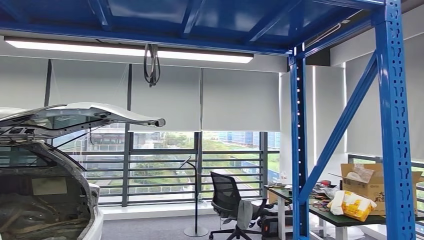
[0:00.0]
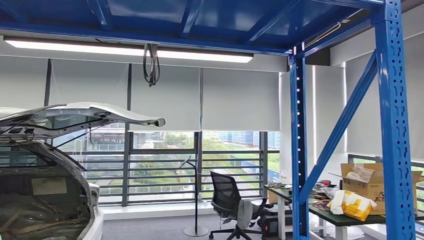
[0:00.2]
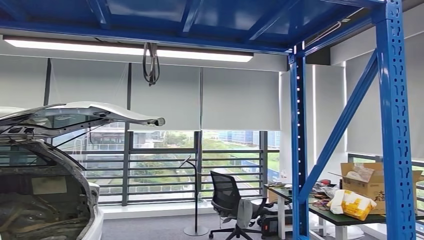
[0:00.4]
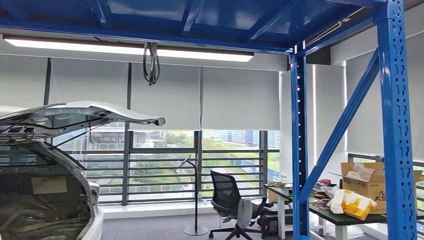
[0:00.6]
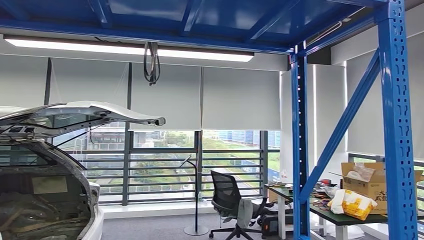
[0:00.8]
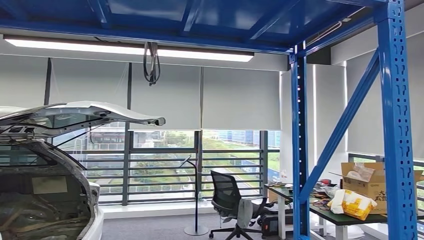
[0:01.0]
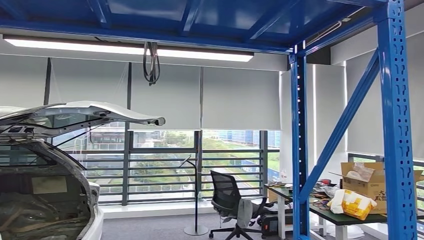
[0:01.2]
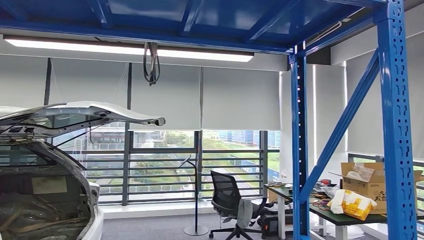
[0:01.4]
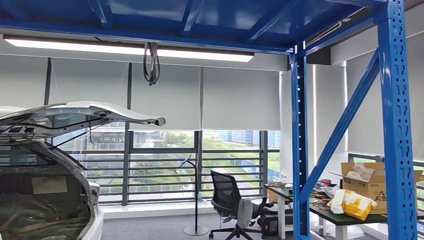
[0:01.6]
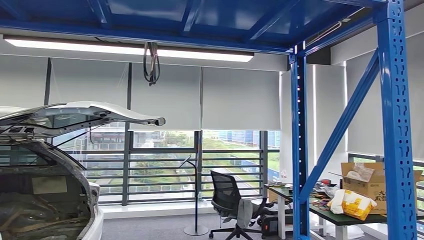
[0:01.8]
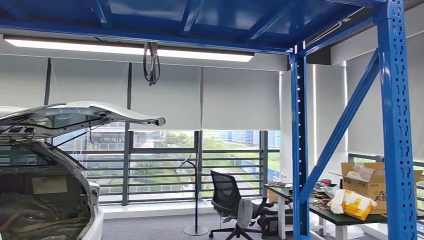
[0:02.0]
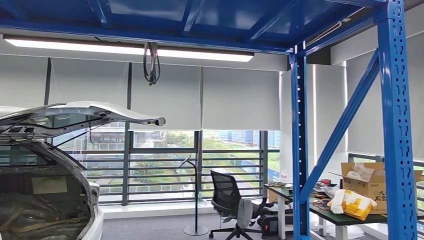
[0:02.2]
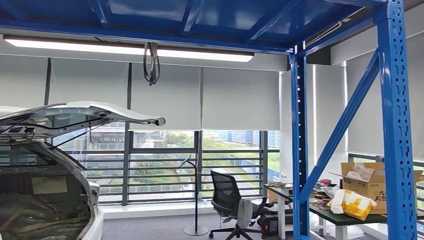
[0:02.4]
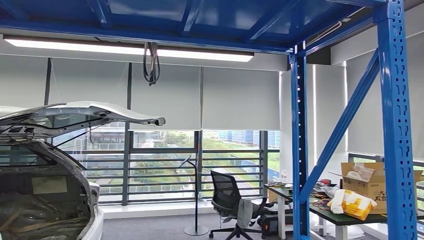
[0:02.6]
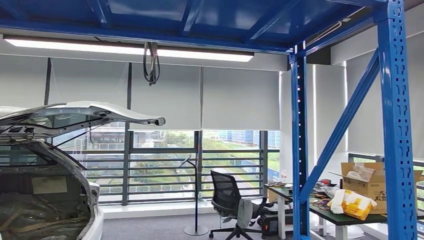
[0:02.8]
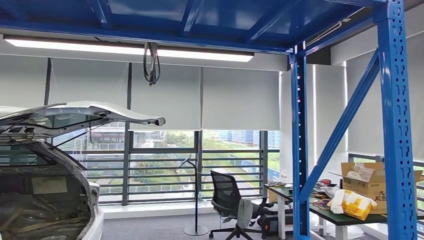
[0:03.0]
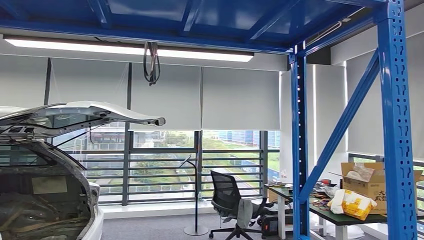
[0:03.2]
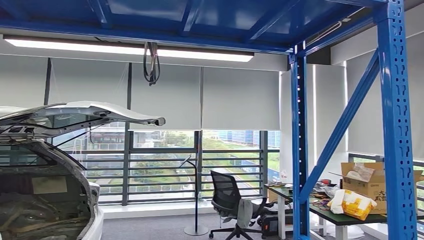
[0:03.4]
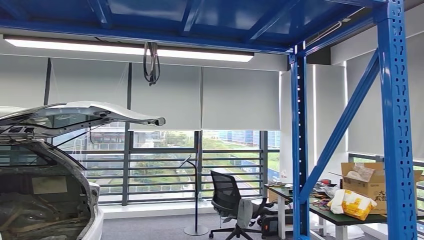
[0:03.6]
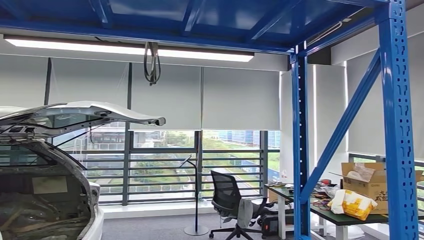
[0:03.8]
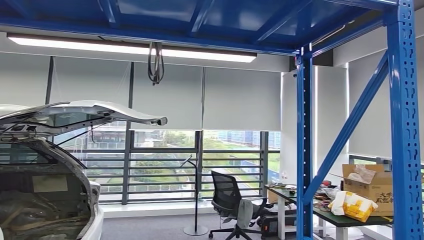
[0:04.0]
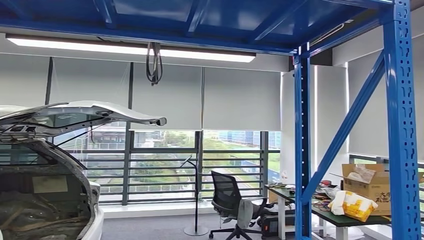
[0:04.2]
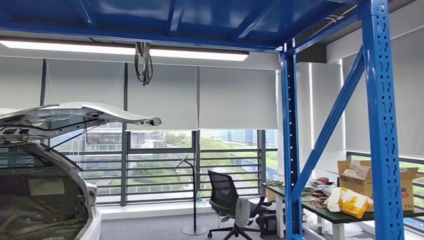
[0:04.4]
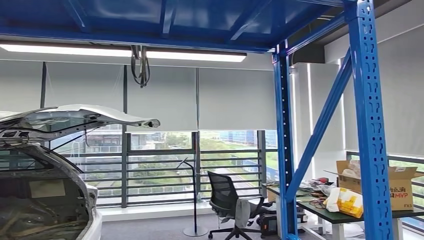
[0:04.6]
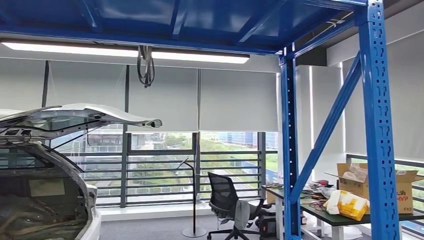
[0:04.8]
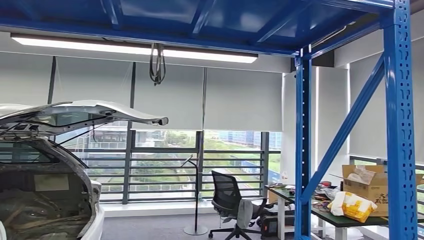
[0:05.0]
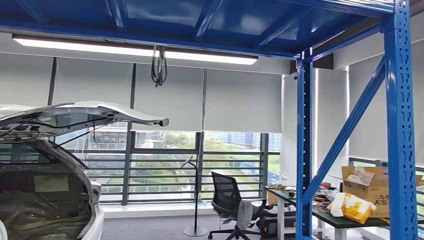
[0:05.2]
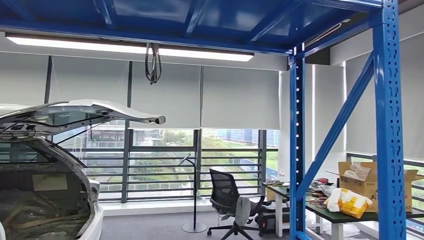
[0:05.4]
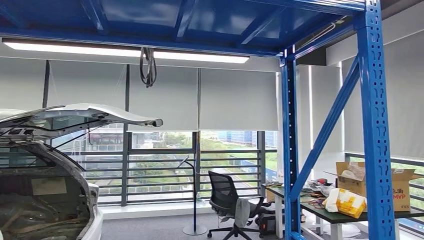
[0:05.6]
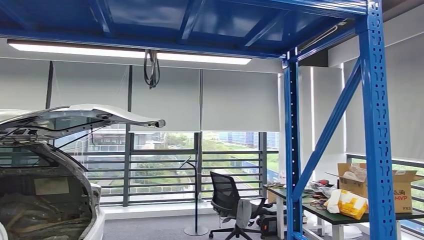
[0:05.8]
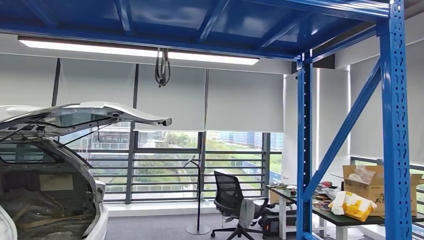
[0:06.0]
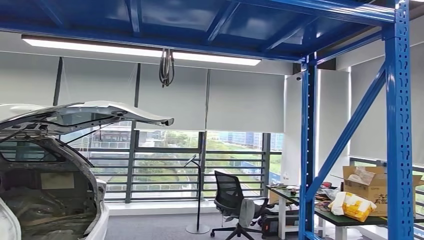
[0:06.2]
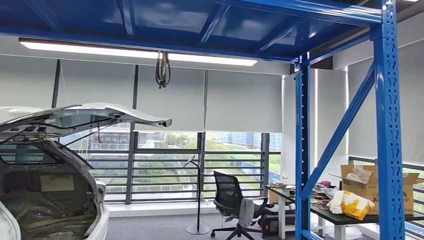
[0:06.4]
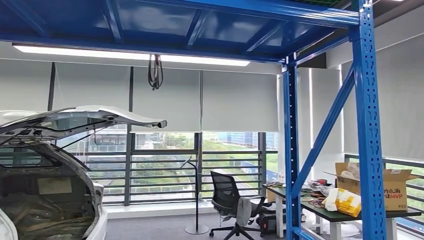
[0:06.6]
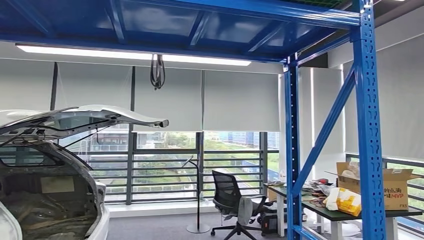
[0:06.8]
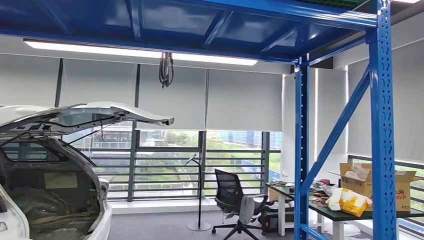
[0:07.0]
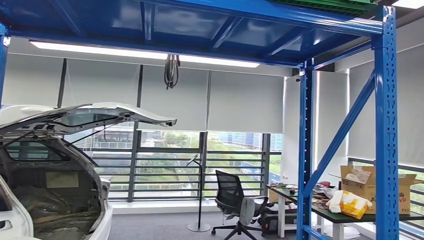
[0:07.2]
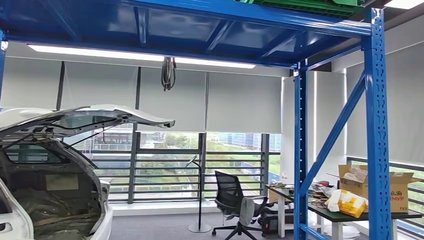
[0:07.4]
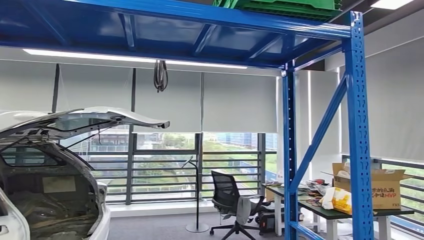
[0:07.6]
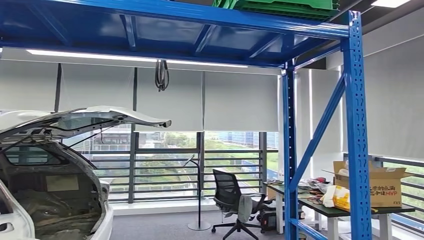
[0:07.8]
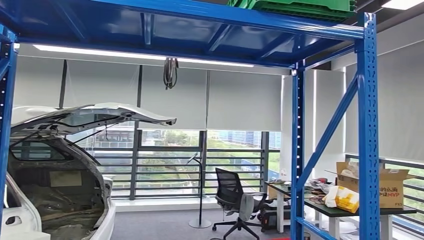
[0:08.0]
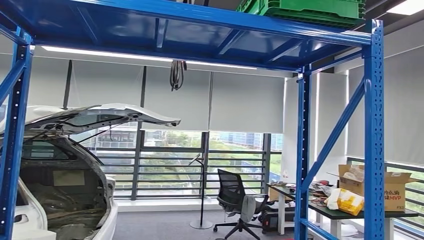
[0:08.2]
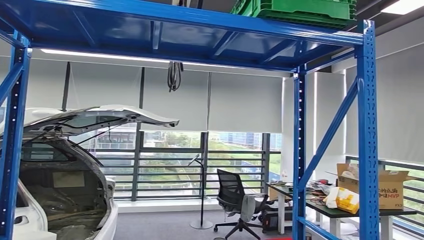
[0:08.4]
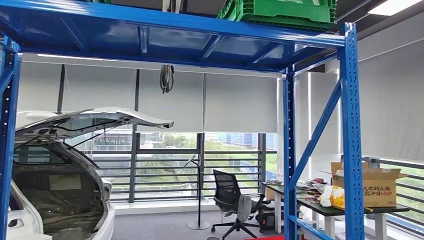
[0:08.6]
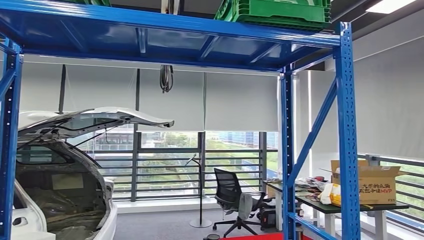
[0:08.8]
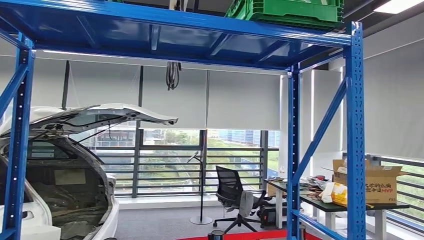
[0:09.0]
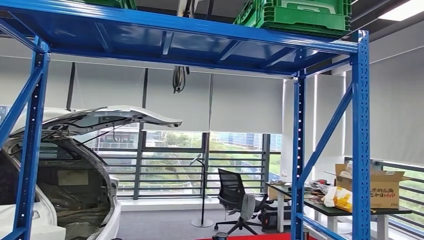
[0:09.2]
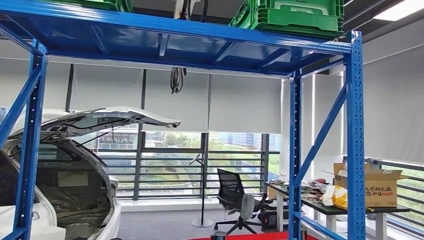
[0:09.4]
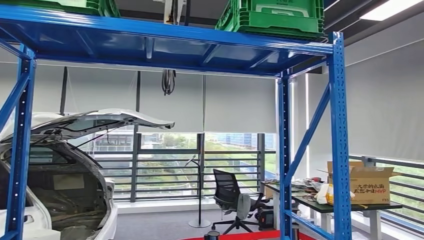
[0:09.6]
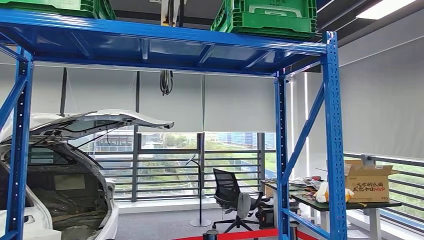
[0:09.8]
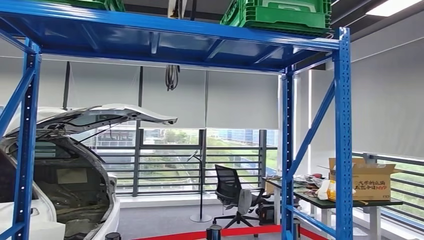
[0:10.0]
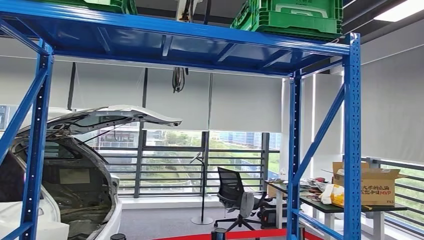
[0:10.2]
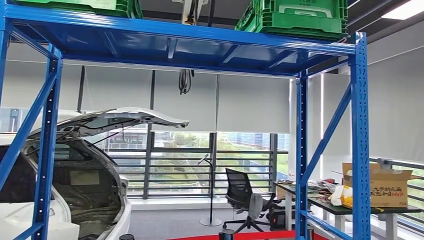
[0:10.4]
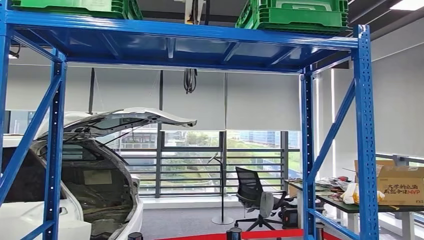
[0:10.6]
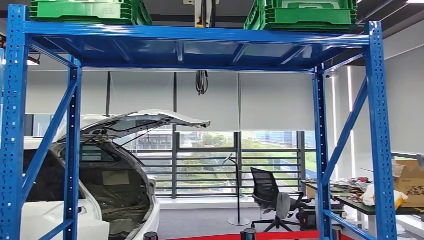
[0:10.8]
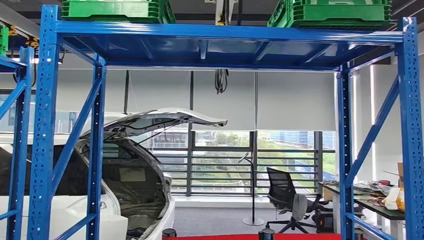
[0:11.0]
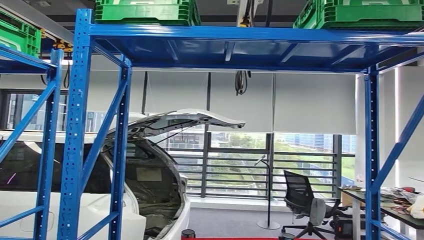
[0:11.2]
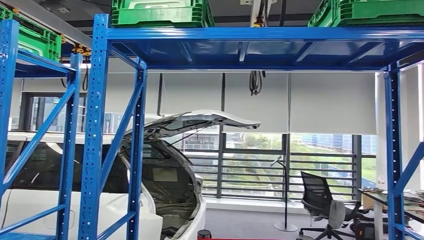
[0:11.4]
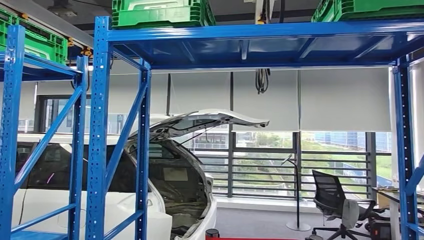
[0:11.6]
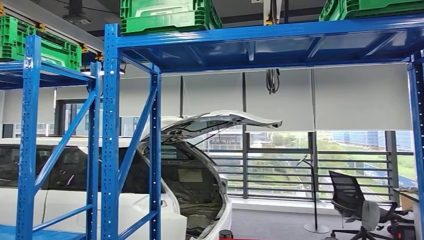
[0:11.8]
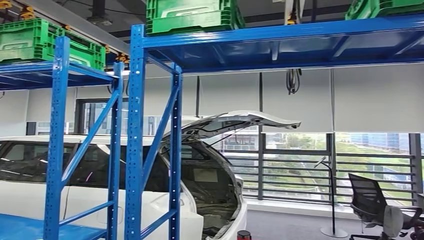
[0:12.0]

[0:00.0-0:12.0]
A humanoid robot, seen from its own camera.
0:00.0 to 0:01.6: The right hand is displaced backward, to the left and upward by roughly 20 cm.

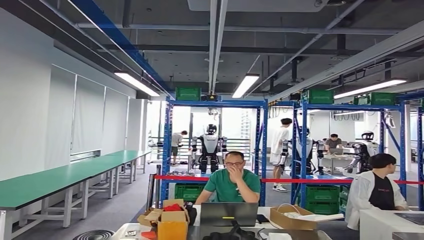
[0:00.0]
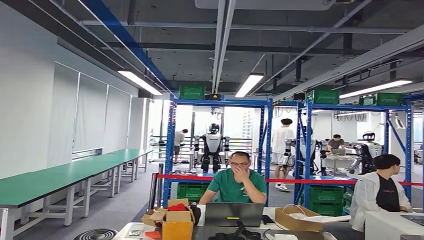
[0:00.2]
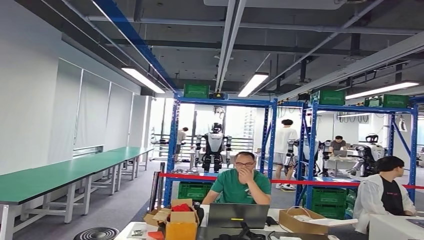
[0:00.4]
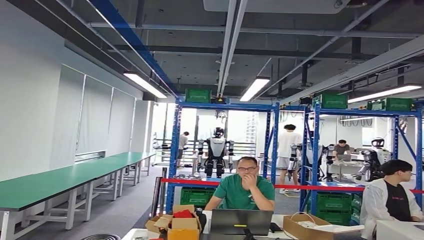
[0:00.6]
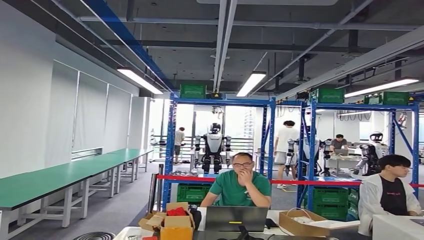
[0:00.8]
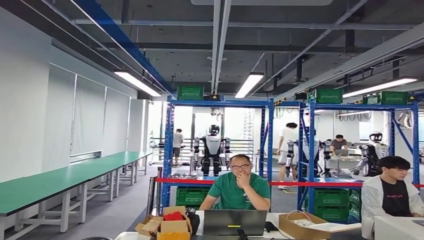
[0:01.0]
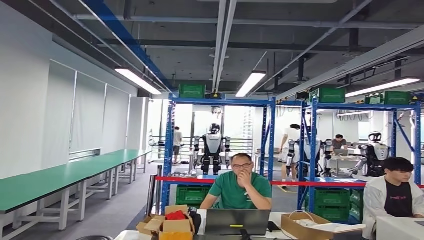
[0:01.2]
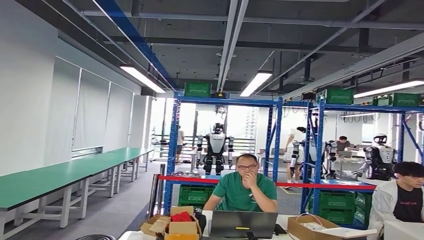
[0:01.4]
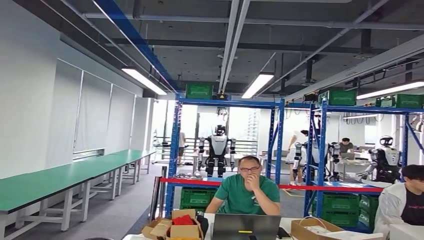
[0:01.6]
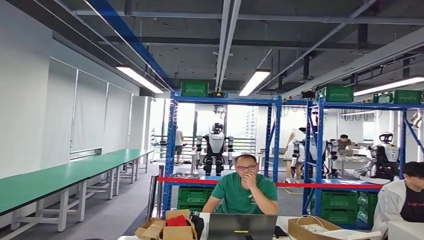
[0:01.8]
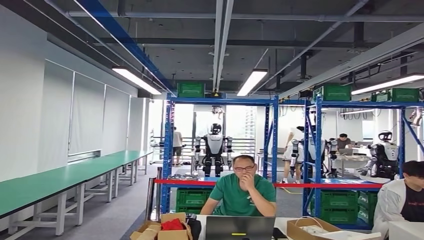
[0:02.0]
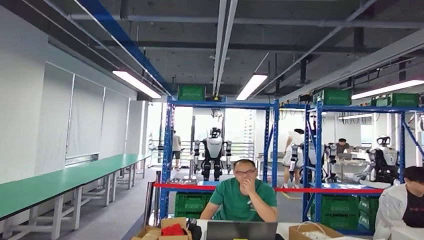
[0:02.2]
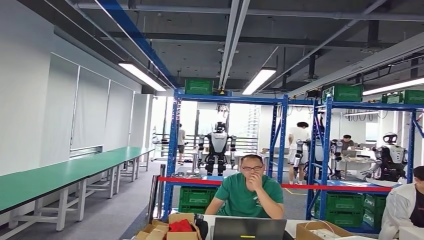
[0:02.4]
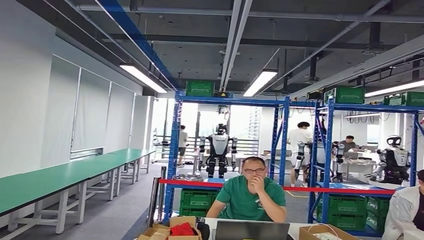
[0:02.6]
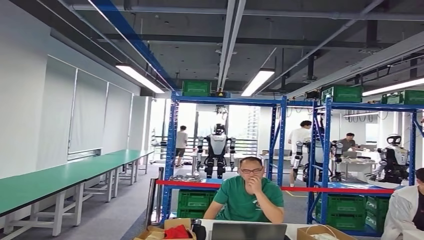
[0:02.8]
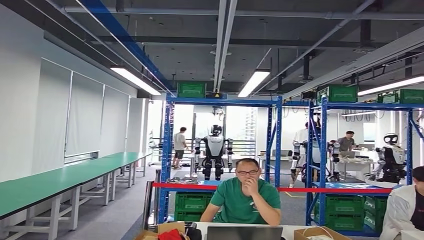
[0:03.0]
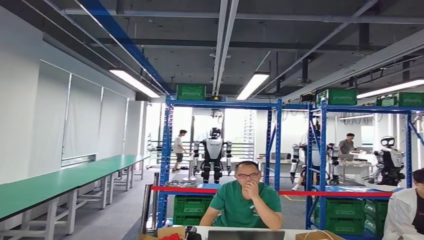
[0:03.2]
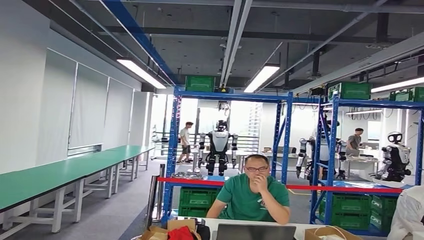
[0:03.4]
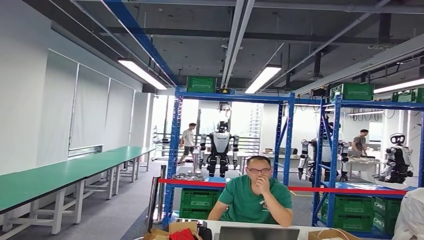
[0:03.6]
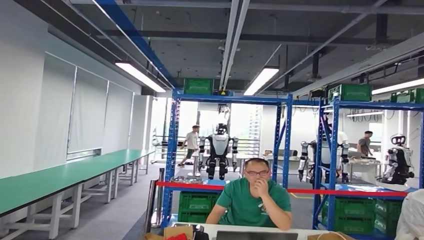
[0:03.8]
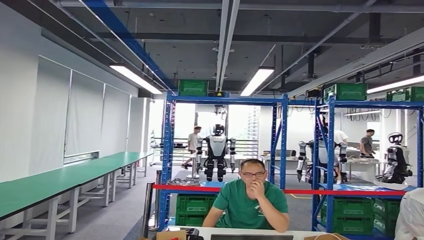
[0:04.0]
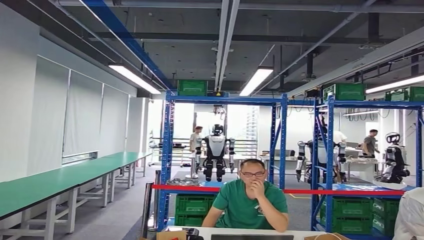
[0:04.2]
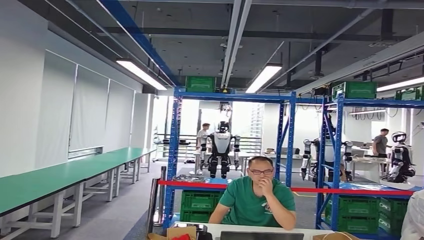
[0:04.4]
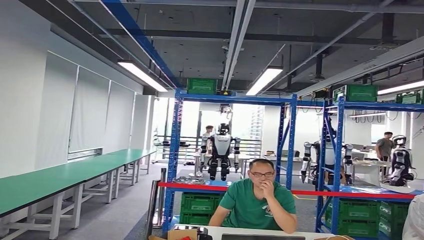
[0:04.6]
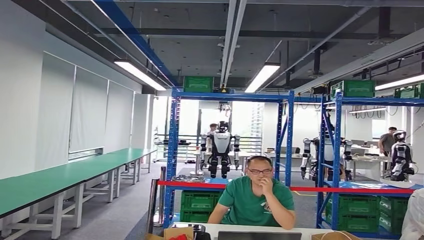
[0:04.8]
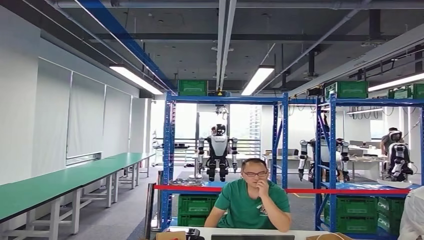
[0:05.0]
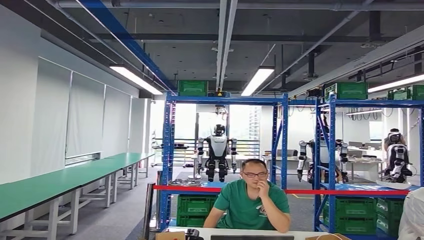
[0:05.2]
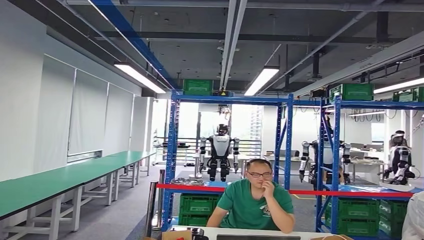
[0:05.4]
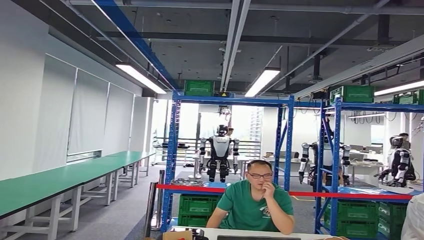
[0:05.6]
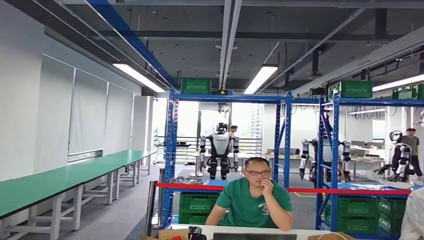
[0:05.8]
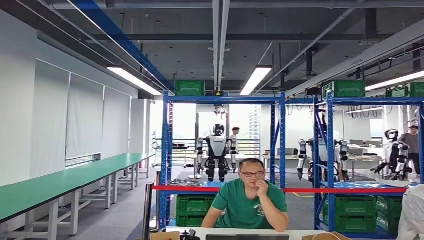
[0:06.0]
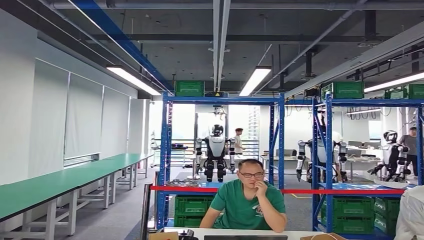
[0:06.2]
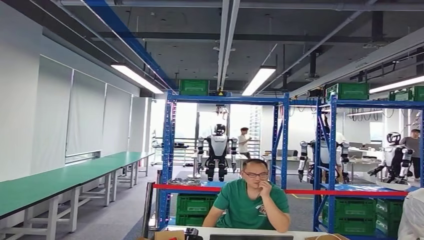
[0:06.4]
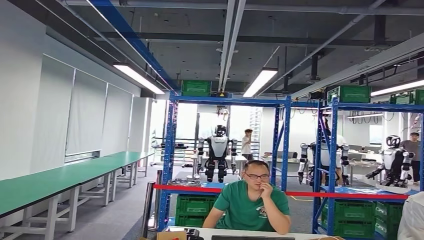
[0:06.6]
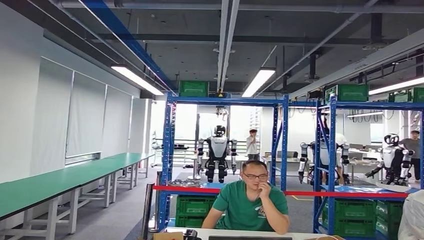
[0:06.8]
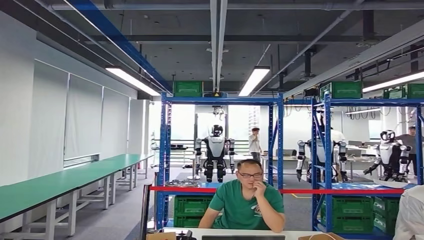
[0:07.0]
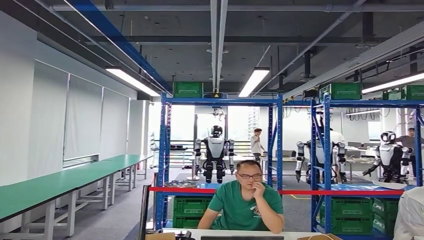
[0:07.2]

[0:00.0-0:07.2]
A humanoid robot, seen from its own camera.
Step, 0:00.0 to 0:04.8: Move the small component to the workbench.
